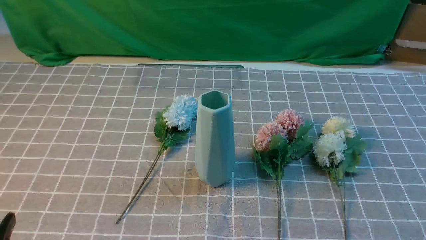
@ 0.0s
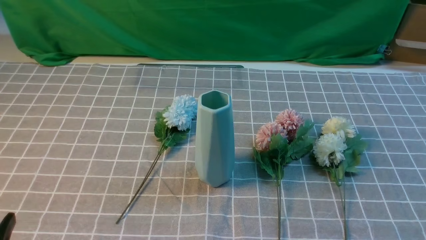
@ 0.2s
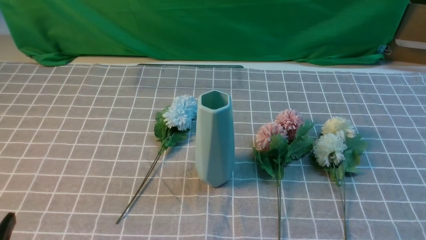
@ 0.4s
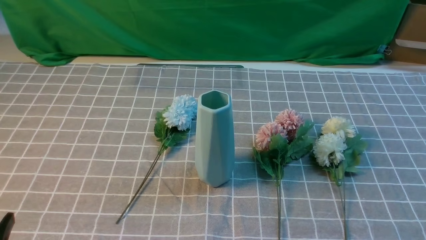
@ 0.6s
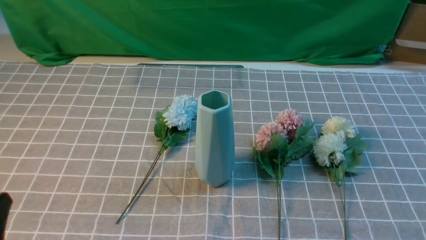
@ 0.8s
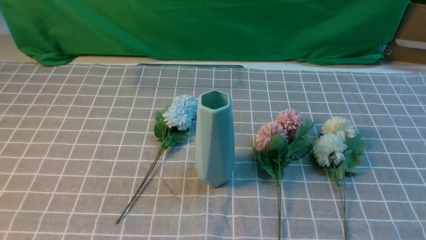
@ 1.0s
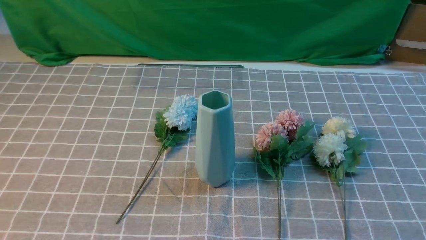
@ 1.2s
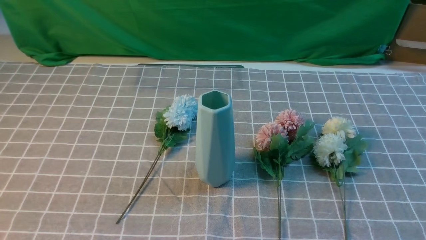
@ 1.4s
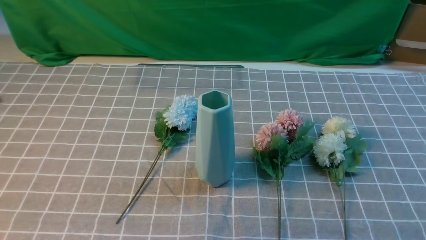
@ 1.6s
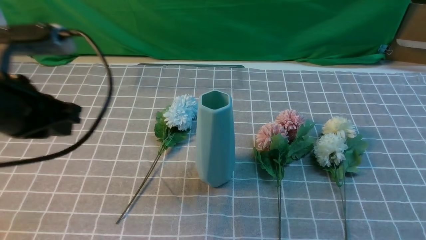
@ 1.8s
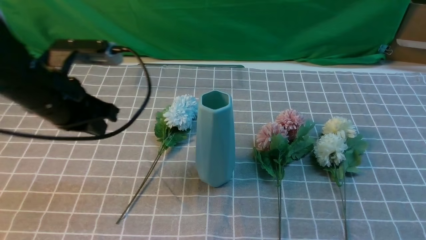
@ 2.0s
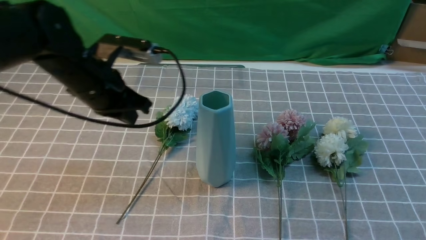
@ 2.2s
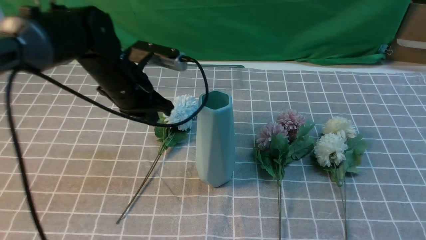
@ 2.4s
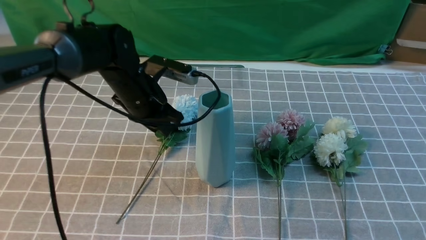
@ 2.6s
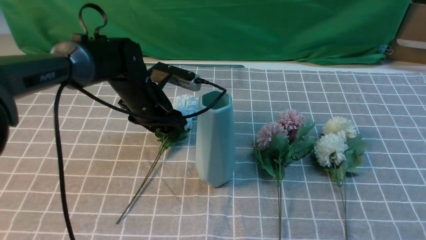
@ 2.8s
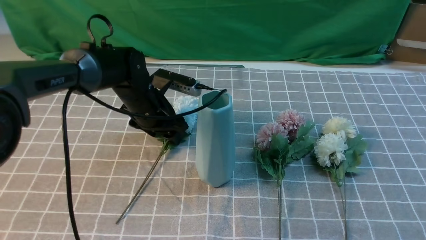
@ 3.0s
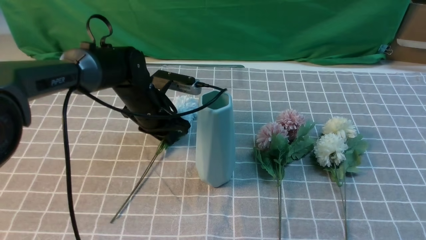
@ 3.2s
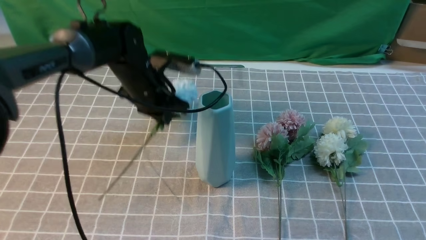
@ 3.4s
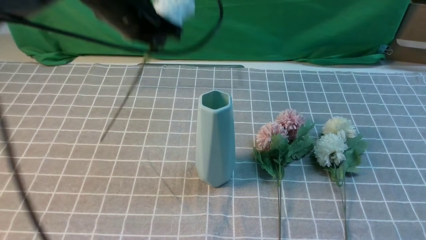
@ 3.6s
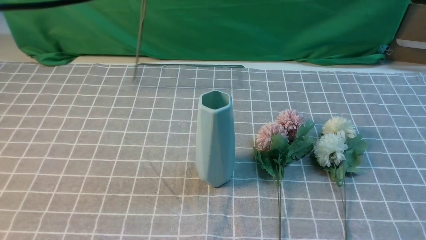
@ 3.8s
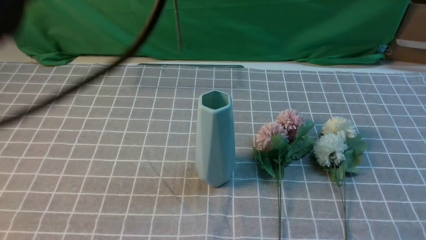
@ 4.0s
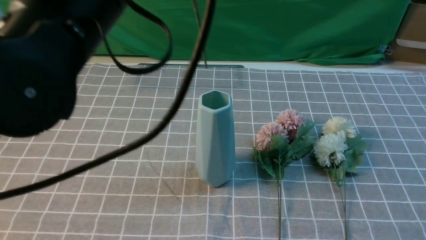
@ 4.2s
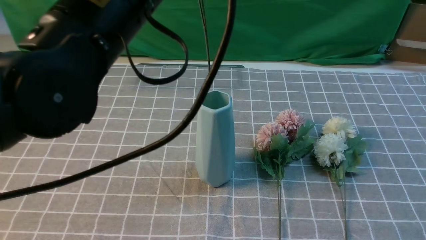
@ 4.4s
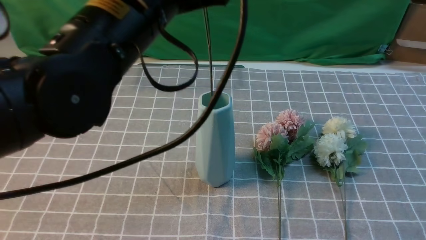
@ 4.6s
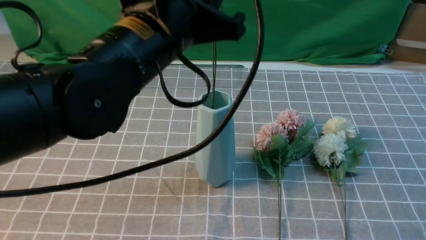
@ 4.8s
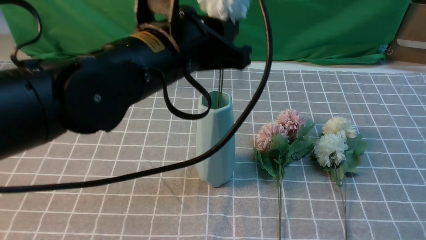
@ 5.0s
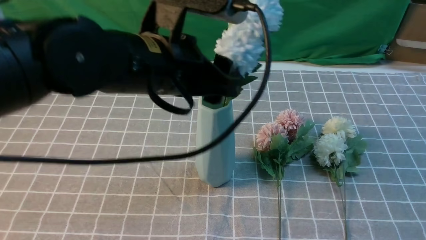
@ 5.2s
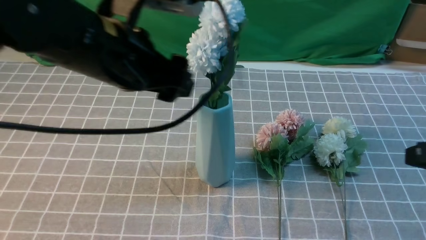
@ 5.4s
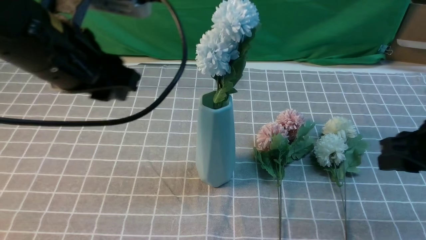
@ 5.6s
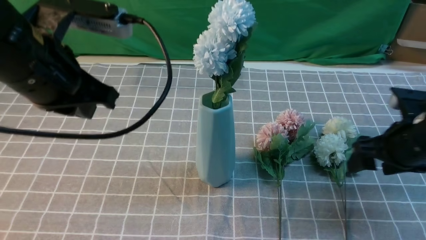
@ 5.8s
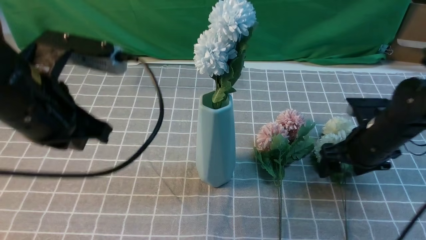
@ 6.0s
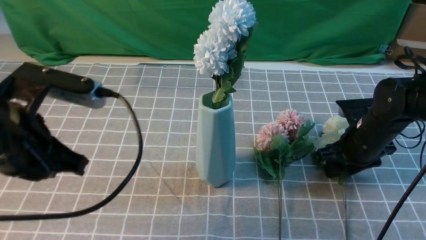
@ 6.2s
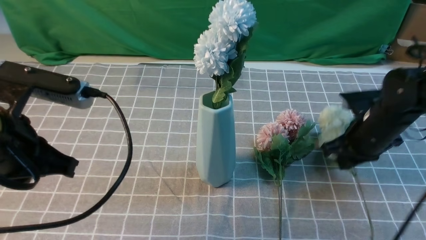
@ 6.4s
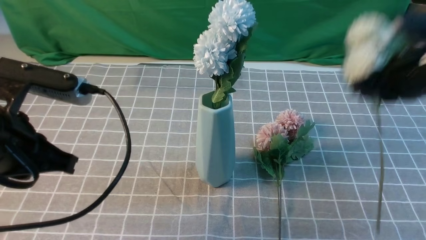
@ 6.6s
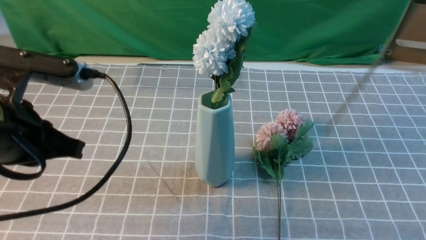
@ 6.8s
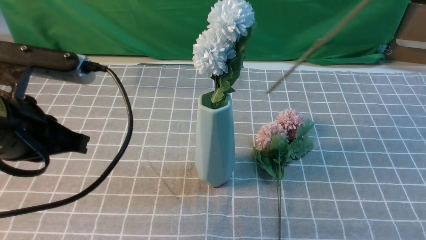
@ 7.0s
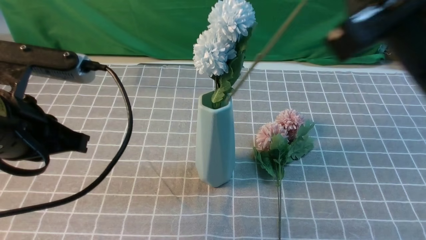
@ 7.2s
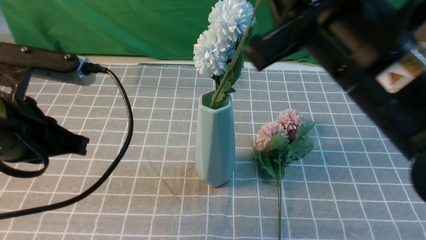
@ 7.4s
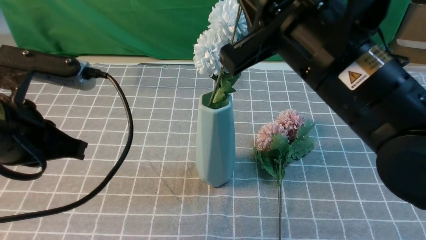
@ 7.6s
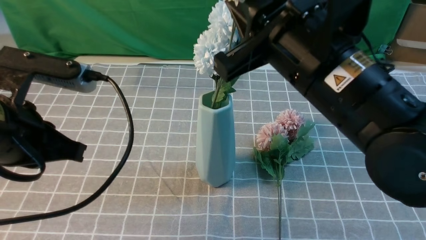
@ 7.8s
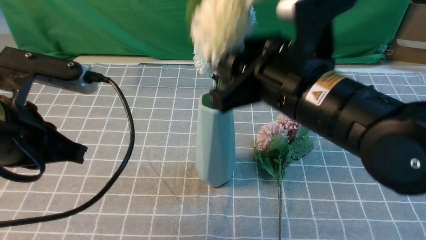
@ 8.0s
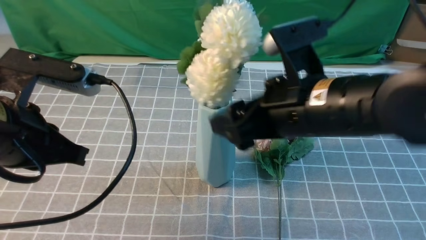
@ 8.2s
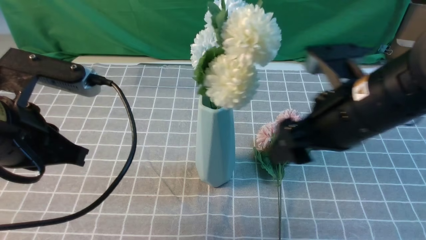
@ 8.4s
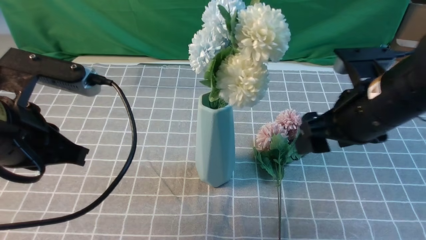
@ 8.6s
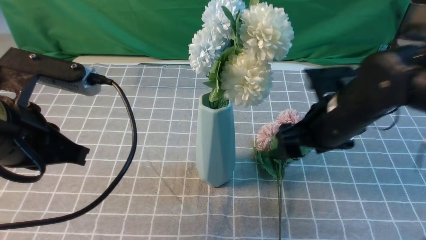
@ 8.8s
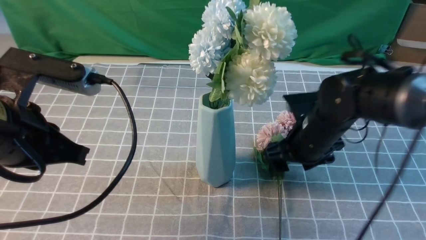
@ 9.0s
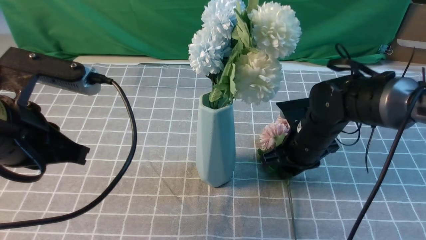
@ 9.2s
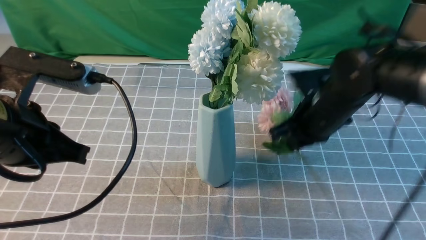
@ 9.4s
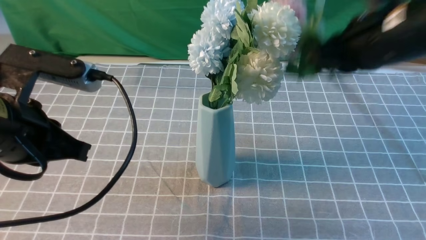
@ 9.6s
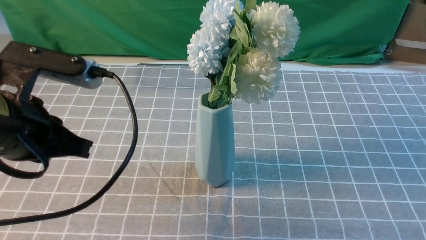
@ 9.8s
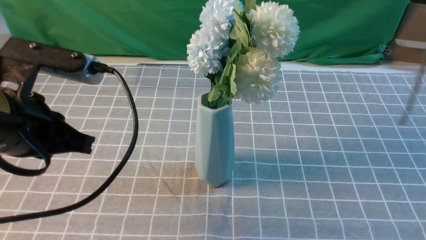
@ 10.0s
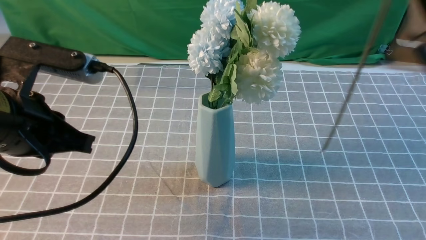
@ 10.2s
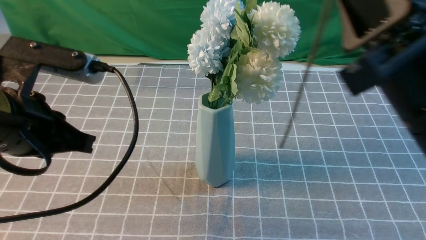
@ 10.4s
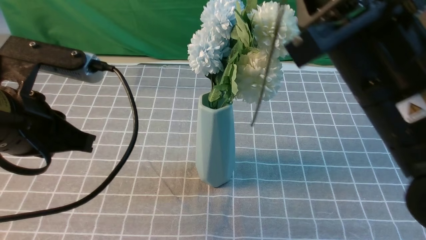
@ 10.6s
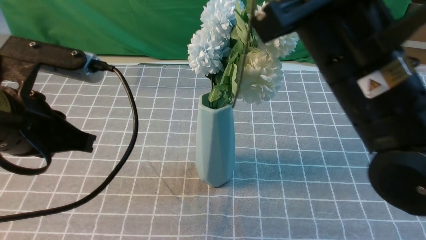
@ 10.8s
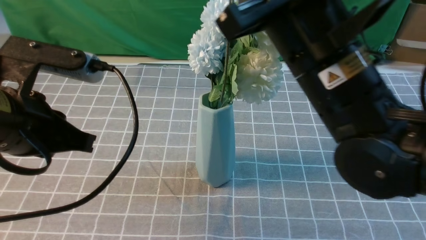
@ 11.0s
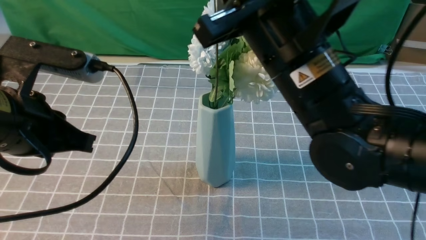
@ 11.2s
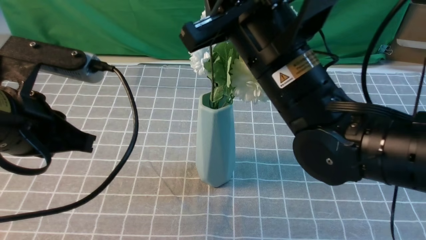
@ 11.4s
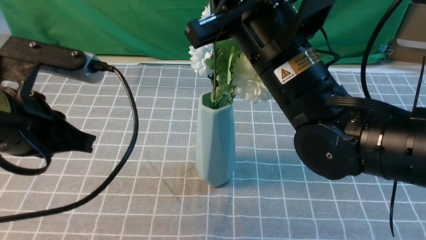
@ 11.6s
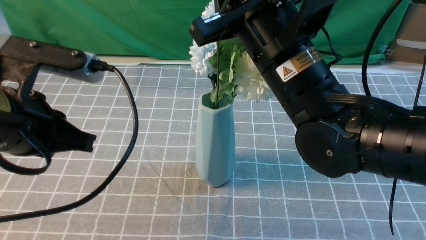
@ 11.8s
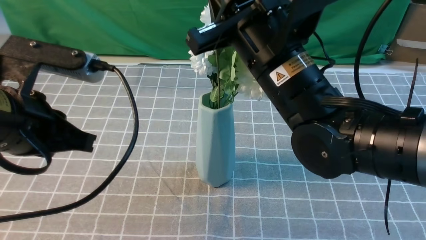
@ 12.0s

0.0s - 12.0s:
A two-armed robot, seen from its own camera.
Task of the whole recording: insert the flowers into the vase on the table with the grey tablecloth.
Step, 0.0s - 3.2s: use the left arm to grab a bunch of fresh flowers.
Step, 3.4s - 5.2s: use the left arm to insert the flowers into the vase.
Step, 5.6s - 6.2s: use the right arm to grab a bunch of fresh flowers.
Step, 6.6s - 8.2s: use the right arm to insert the flowers into the vase.
1.6s - 3.0s: The right gripper is displaced upward and forward by about 15 cm. Meanwhile the left gripper moves forward, downward and to the right, roughly 35 cm, and opens.
3.0s - 4.4s: The left gripper goes some 30 cm upward and backward, and closes.
4.4s - 6.0s: The right gripper moves forward and downward, roughly 25 cm, and opens up; the left gripper travels to the left and downward by about 15 cm, and opens, then closes once more.
6.0s - 7.6s: The right gripper shifts approximately 30 cm upward, to the left and backward, and closes up.
7.6s - 9.0s: The right gripper is displaced downward and forward by roughly 25 cm, and opens.
9.0s - 10.4s: The right gripper goes roughly 25 cm upward and backward, and closes its fingers.
10.4s - 12.0s: The right gripper travels forward and to the left by approximately 15 cm.

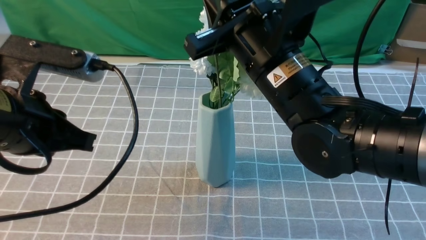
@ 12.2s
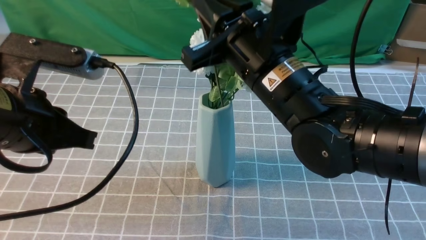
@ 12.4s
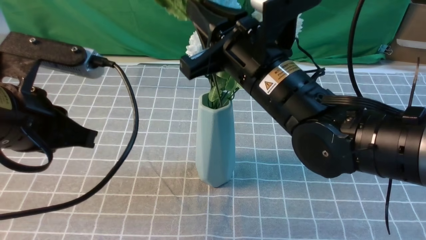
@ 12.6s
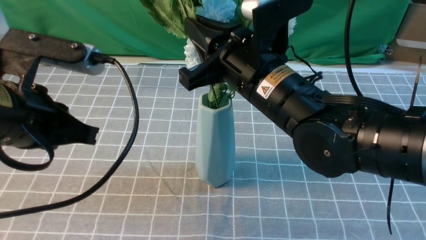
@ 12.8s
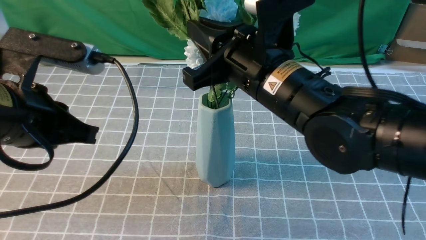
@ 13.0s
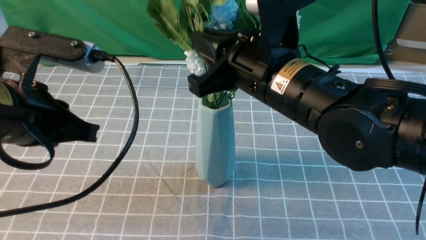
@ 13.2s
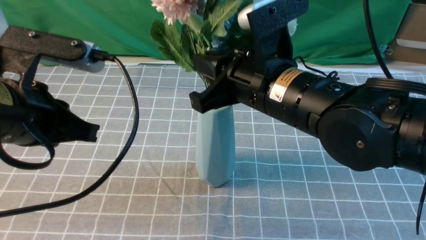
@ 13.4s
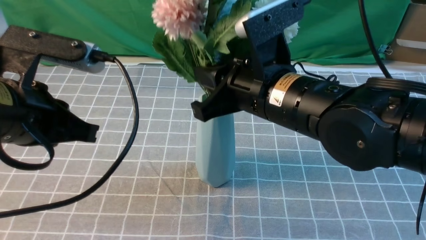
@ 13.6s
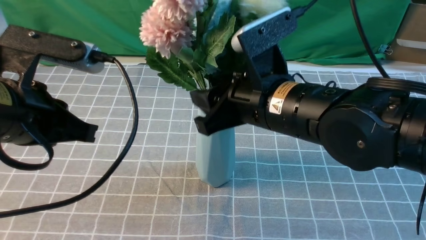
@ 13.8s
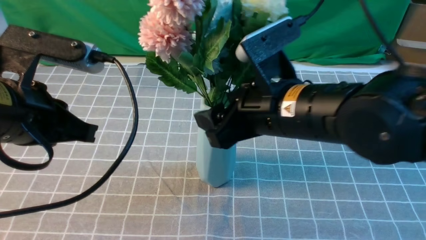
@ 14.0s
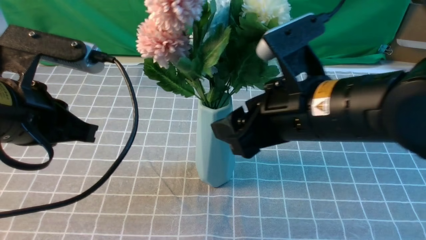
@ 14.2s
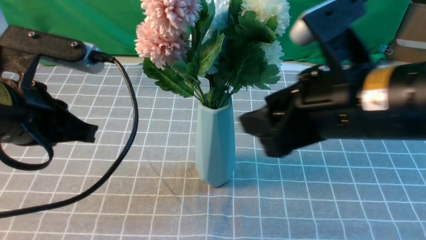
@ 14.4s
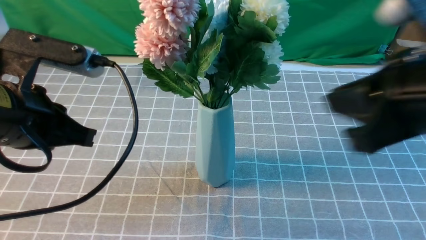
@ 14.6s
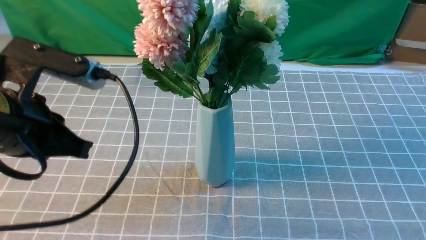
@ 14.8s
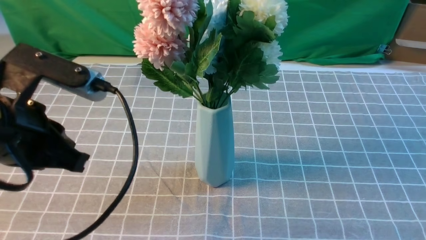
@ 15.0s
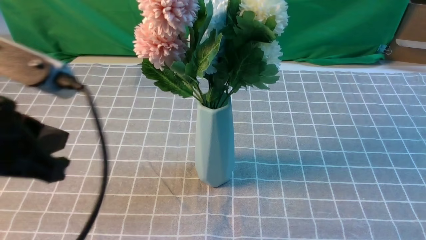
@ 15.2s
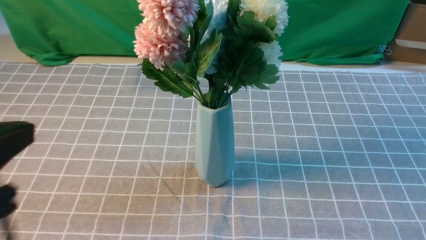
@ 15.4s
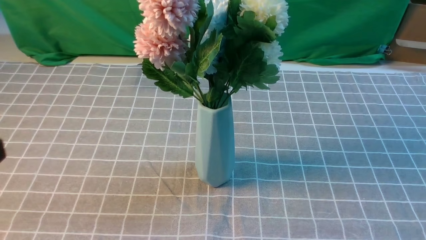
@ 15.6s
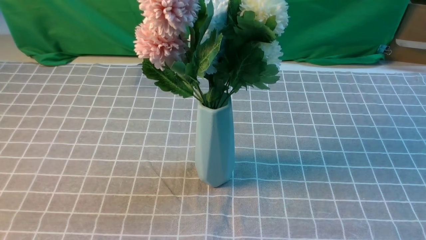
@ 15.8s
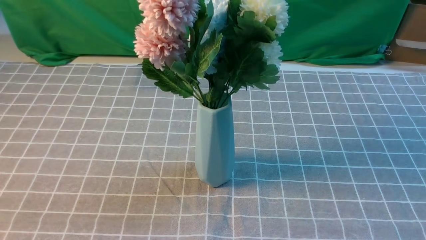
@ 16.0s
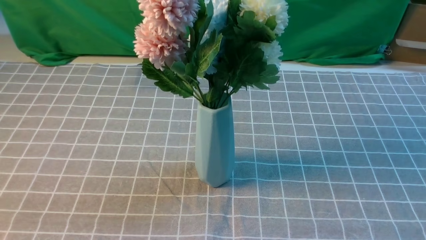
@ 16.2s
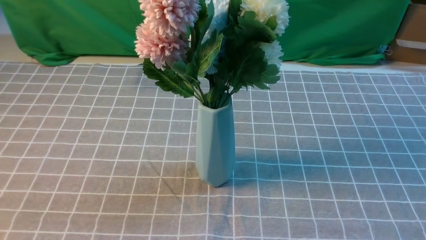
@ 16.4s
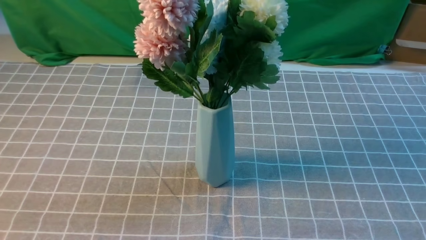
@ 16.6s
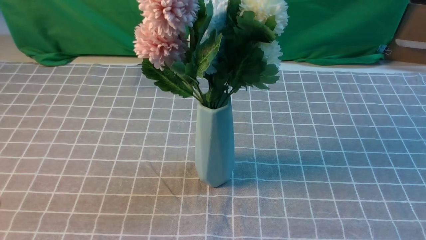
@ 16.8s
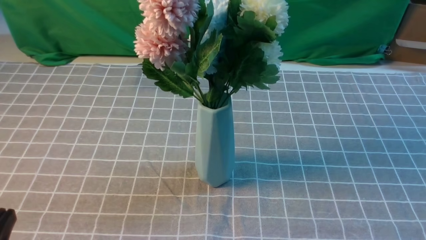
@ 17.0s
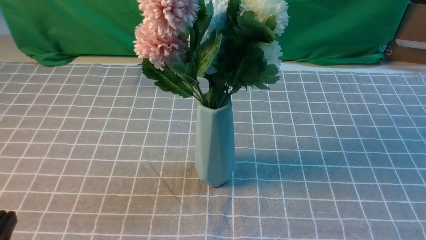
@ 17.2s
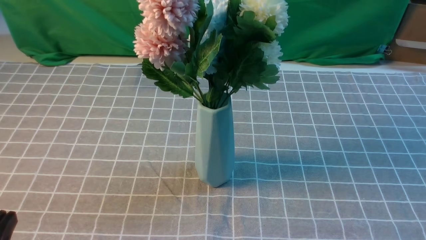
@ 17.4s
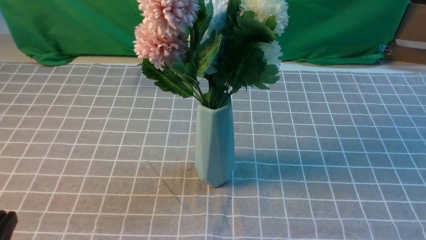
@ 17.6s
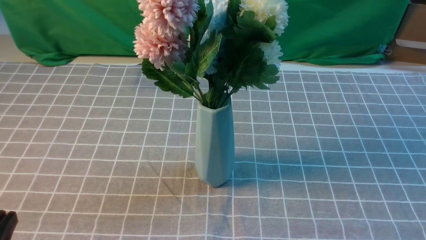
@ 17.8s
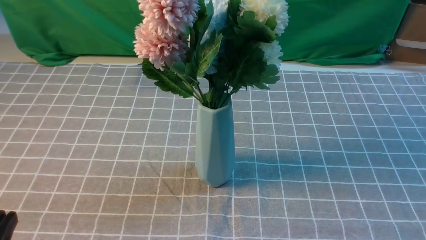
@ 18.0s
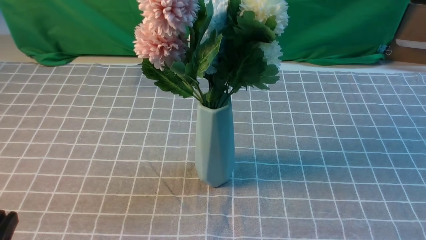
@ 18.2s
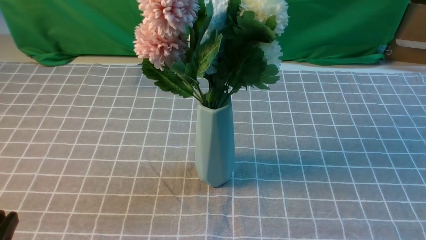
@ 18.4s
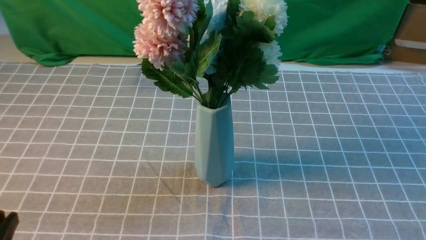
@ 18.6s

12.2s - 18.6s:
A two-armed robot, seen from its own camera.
Task of the whole recording: insert the flowers into the vase on the table with the grey tablecloth.
Step, 14.2s - 15.6s: use the right arm to insert the flowers into the vase.
12.2s - 13.8s: The right gripper opens.
13.8s - 15.4s: The left gripper shifts some 10 cm backward; the right gripper travels to the right and backward by some 35 cm, and closes.
15.4s - 17.0s: The left gripper goes approximately 15 cm downward.
